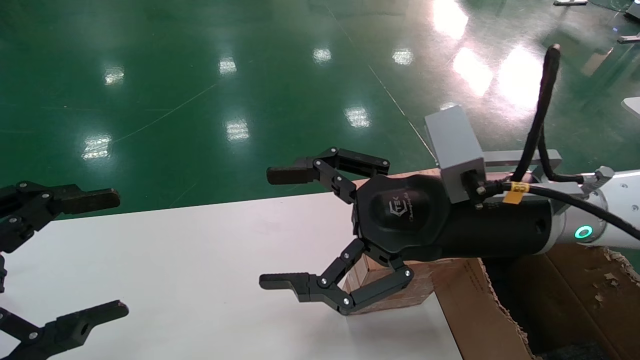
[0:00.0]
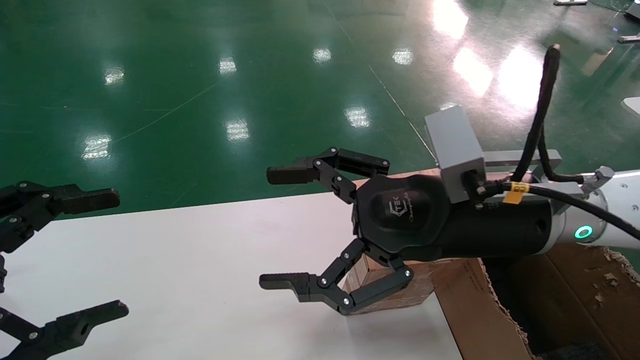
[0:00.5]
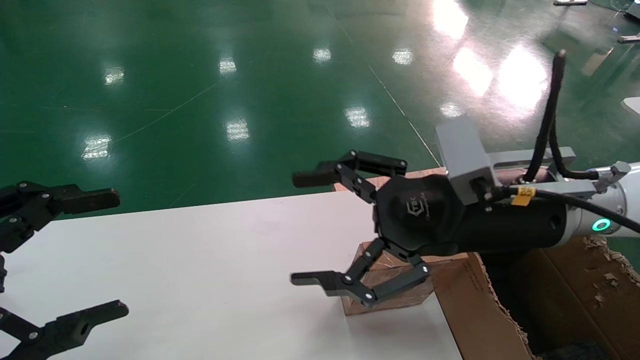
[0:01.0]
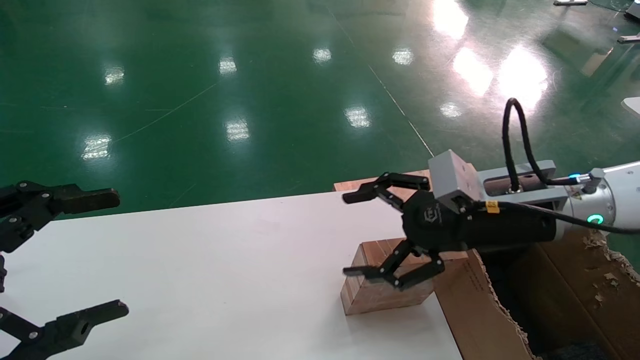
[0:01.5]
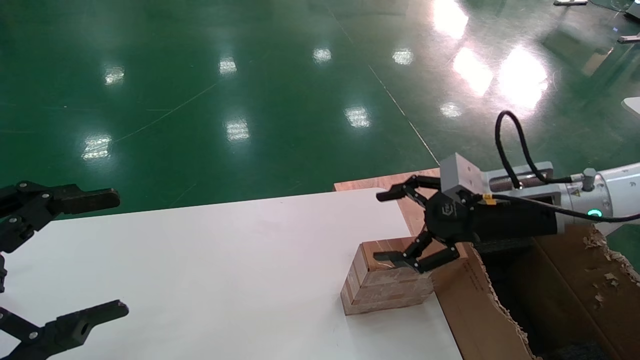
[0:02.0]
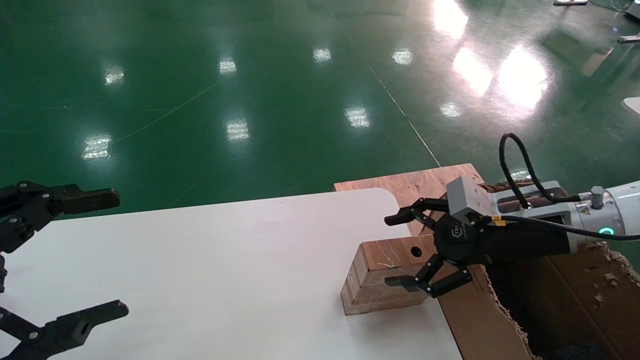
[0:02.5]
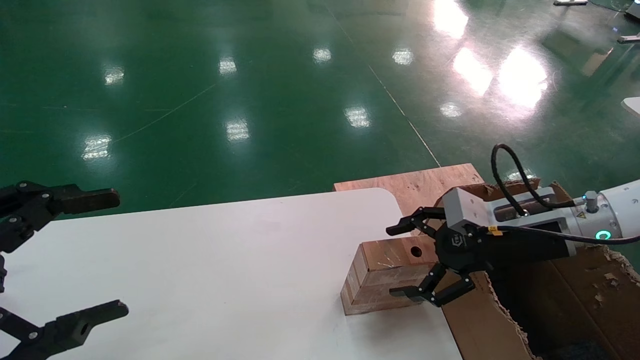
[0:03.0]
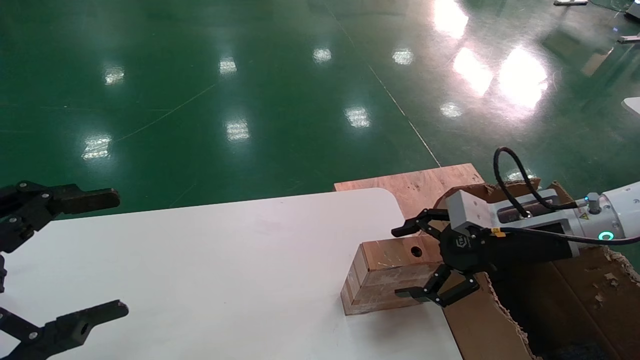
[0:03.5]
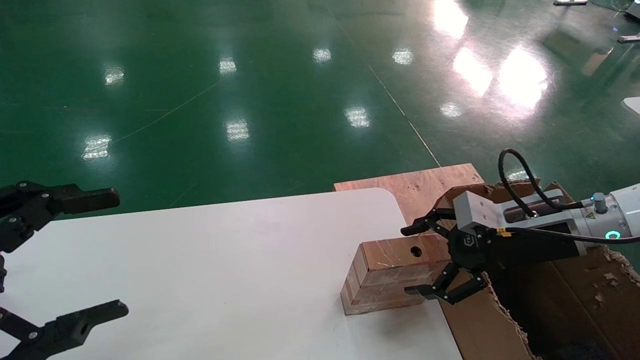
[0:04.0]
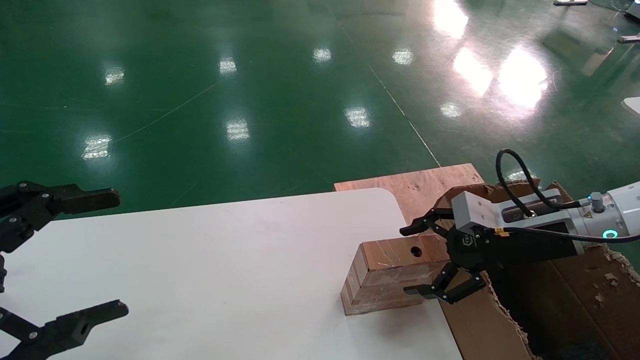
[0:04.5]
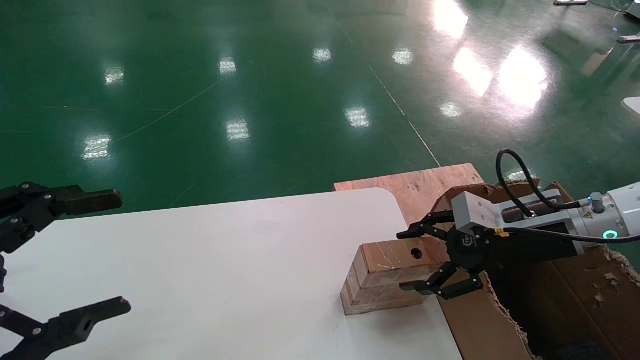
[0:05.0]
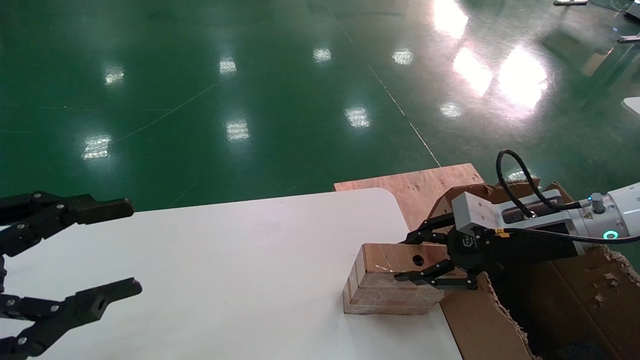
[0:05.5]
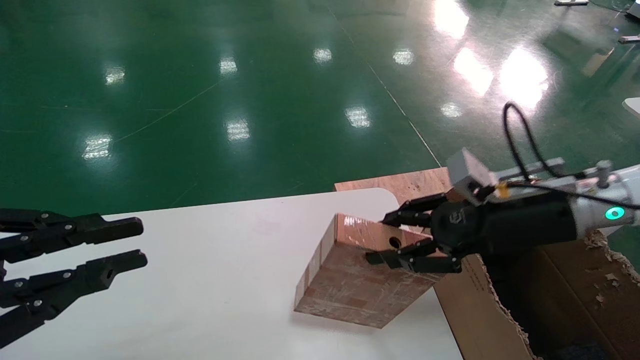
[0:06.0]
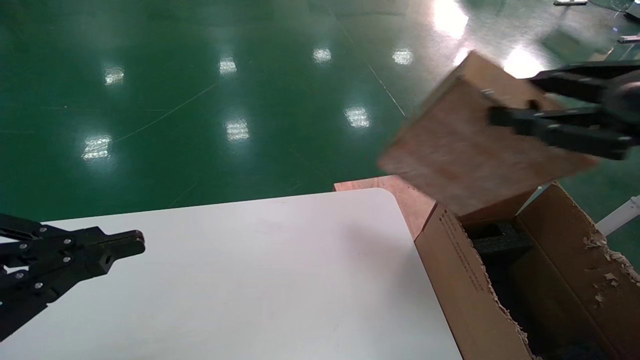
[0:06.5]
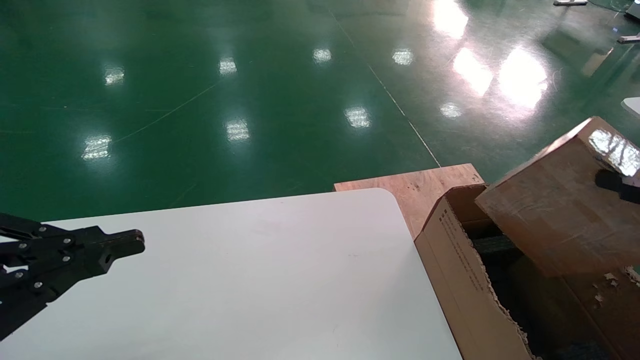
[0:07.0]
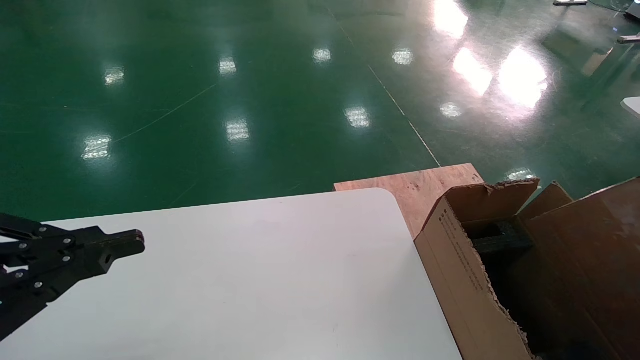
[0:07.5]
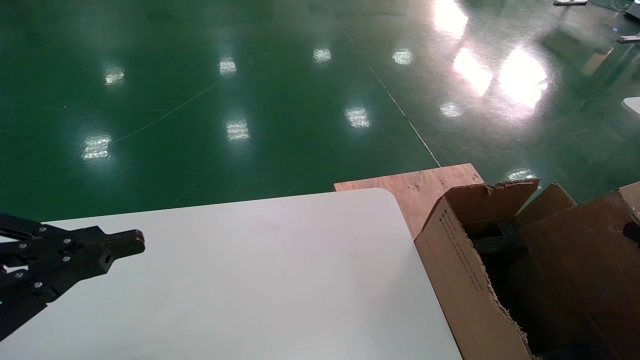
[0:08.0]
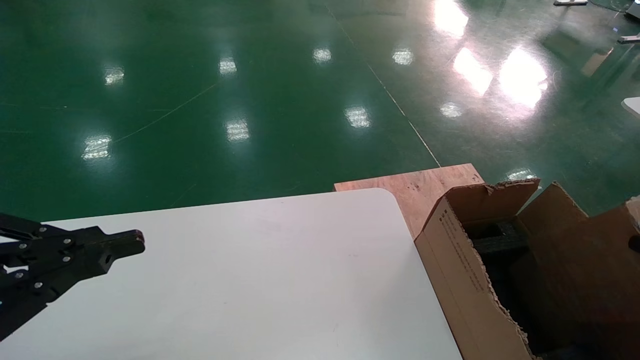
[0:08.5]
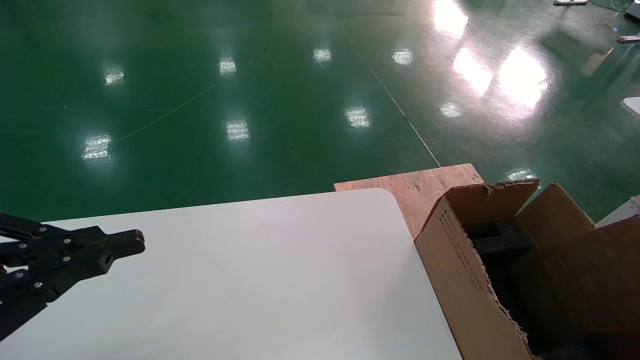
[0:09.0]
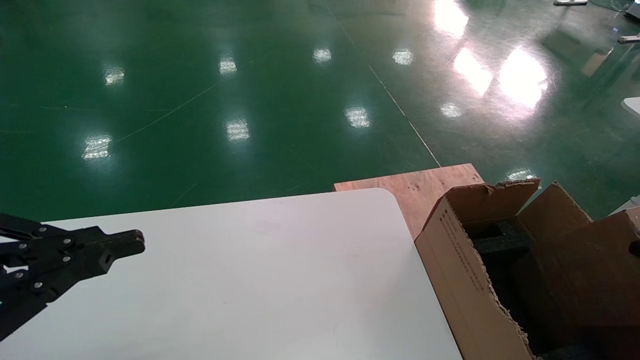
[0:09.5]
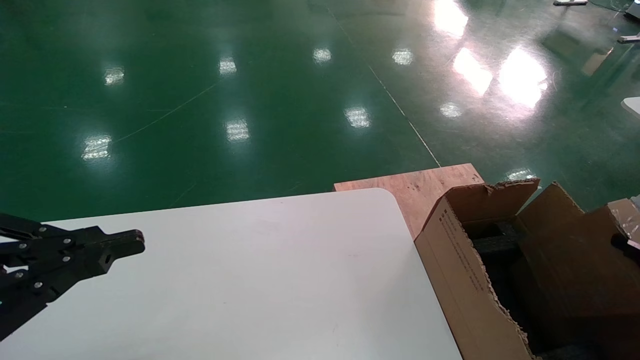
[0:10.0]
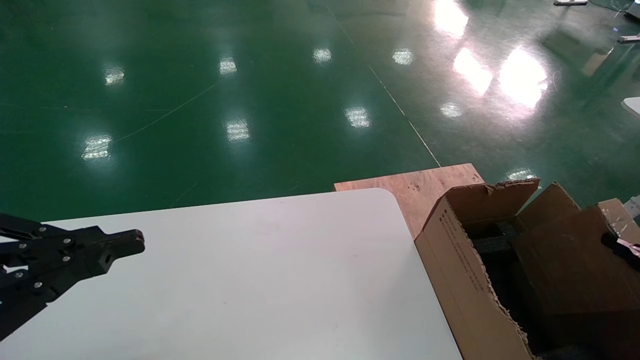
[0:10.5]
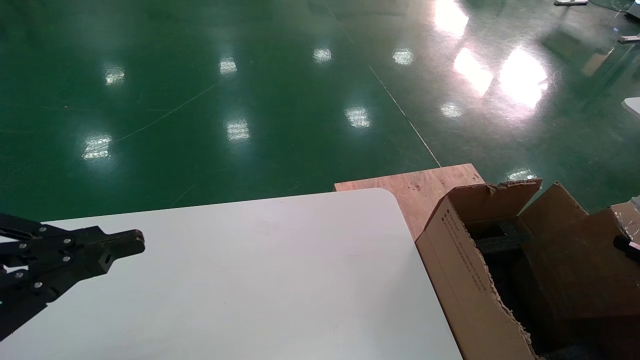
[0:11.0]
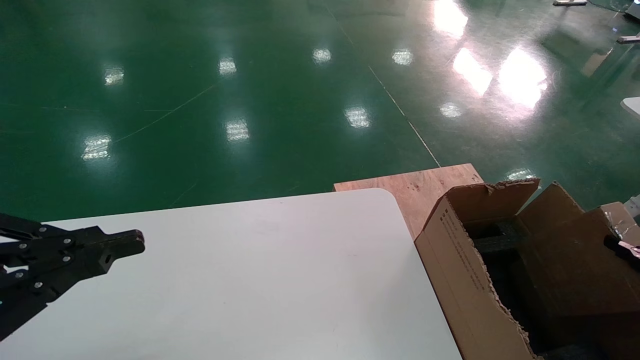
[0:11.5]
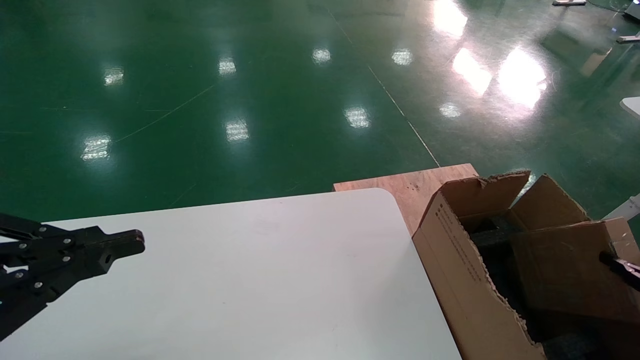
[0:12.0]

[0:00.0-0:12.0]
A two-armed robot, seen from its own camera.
Task of the whole recording: put the box on the table into the big box.
Step, 0:01.5 to 0:05.5: Pick up the mouse and the power cord paper box.
0:00.0 to 0:02.0: The right gripper goes approximately 15 cm to the right and forward.
0:02.0 to 0:04.0: There are only small adjustments of the grippers.
0:04.0 to 0:06.0: The right gripper shifts roughly 5 cm upward, and closes its fingers; the left gripper closes up.
0:06.0 to 0:08.0: The right gripper goes about 30 cm backward, to the right and downward.
0:10.0 to 0:12.0: The grippers move only a little.

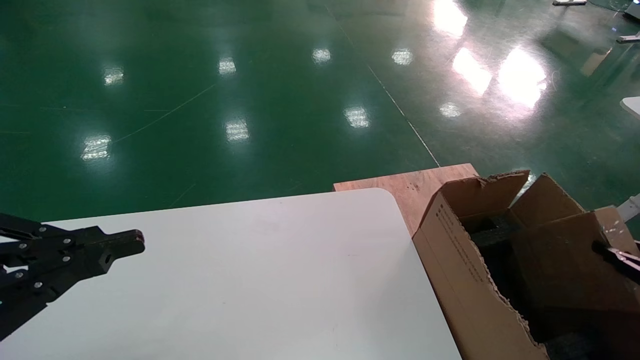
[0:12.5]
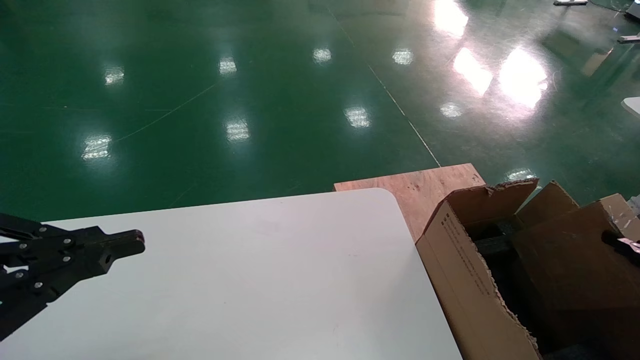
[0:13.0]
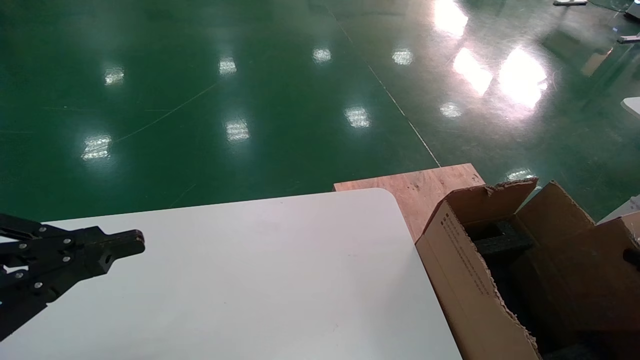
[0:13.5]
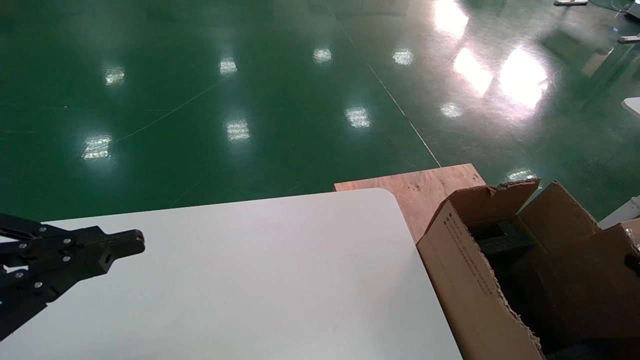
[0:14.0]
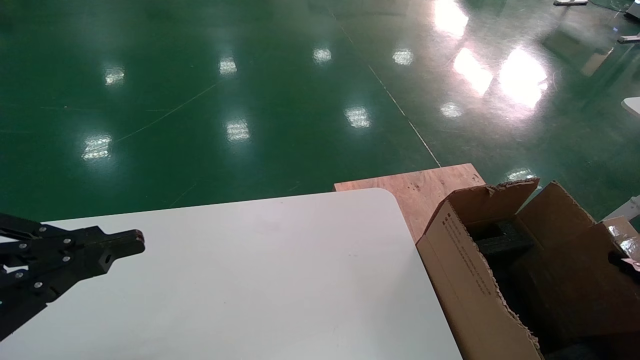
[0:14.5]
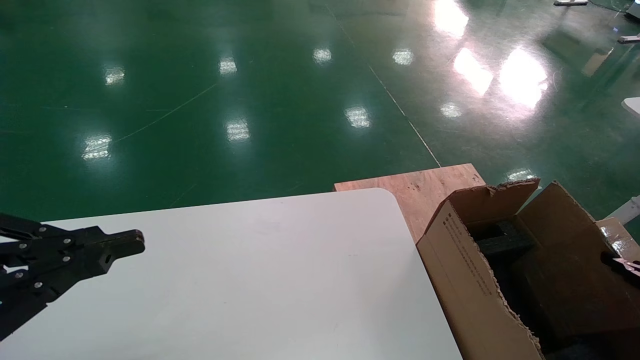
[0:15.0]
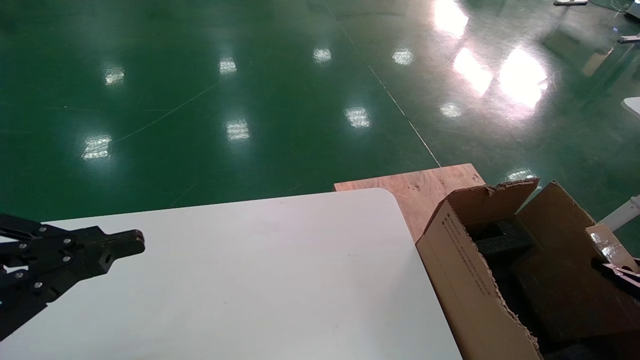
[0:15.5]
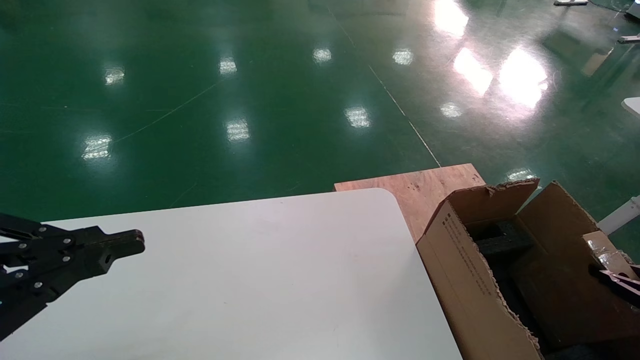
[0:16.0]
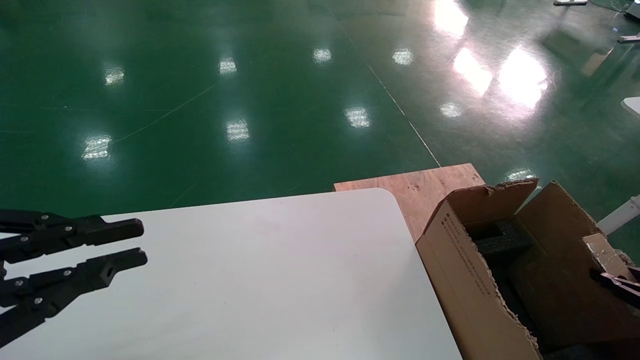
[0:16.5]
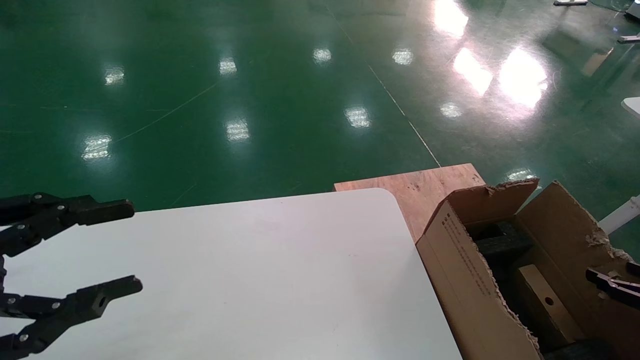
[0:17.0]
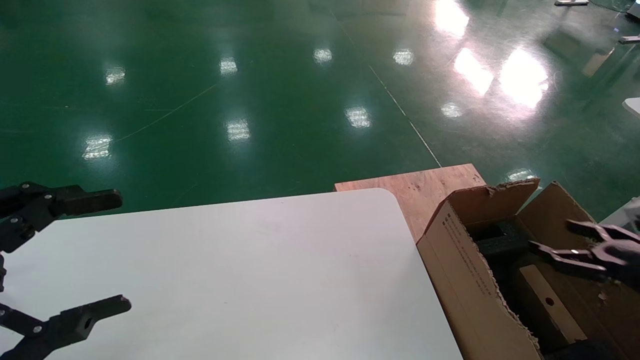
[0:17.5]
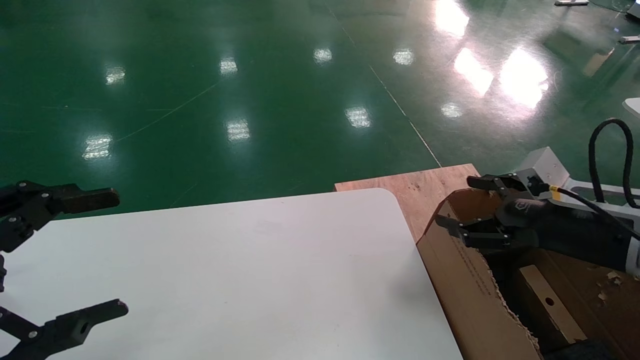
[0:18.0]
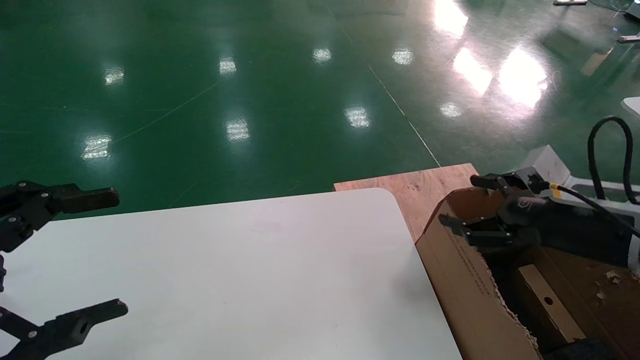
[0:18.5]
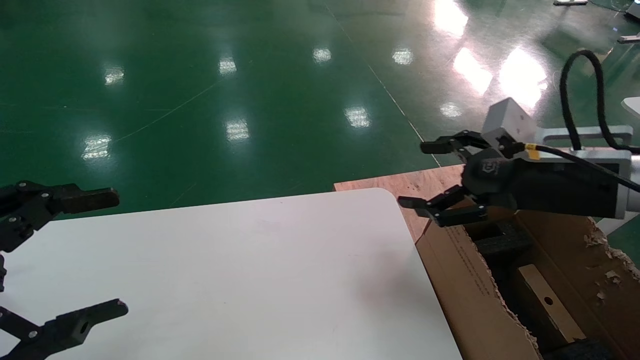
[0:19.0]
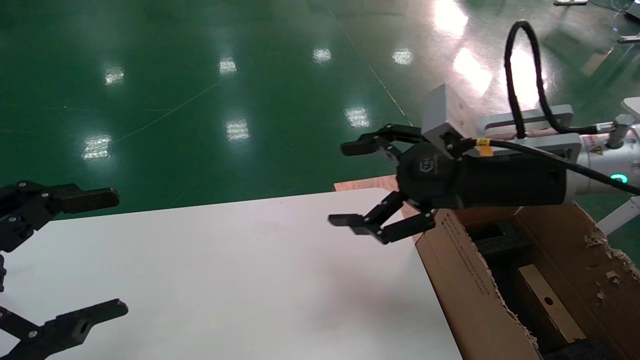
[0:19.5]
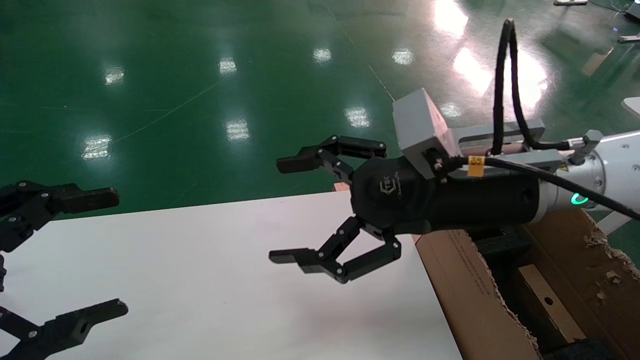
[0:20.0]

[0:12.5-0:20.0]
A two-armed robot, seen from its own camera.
Task of the whole recording: put the box on the table into the big box.
Step, 0:12.5 to 0:16.5: Place the mouse and the power cord paper box into the container.
0:12.5 to 0:16.5: The grippers stay close to where they were, moving slightly.
0:16.5 to 0:18.0: The left gripper opens. Meanwhile the right gripper goes about 25 cm to the left, upward and forward, and opens.
0:18.0 to 0:20.0: The right gripper shifts some 20 cm to the left and upward.
